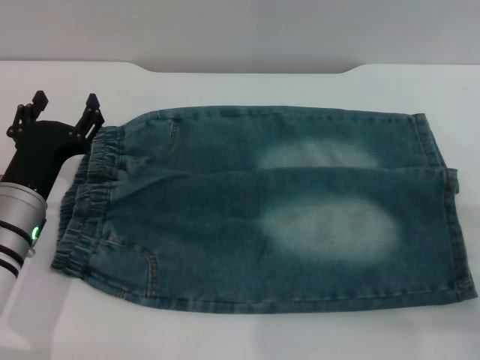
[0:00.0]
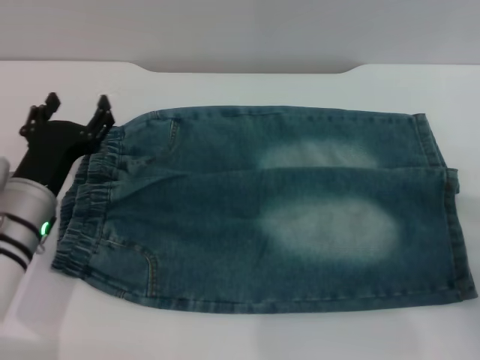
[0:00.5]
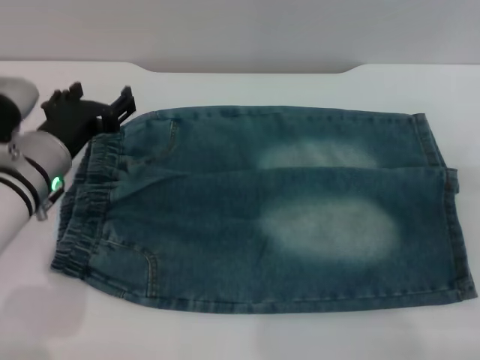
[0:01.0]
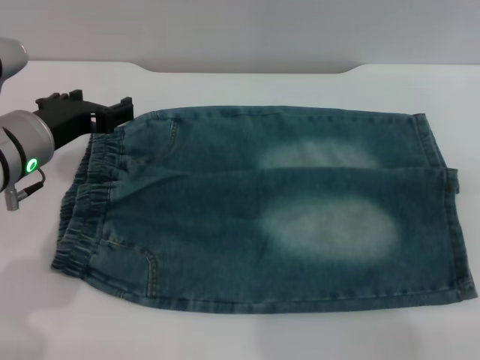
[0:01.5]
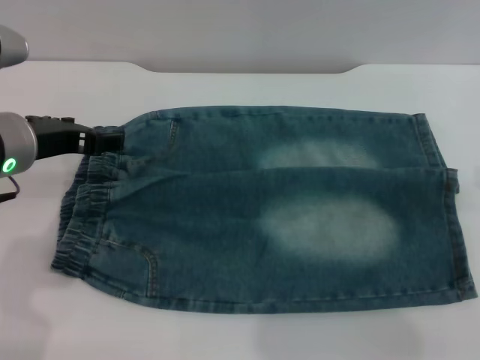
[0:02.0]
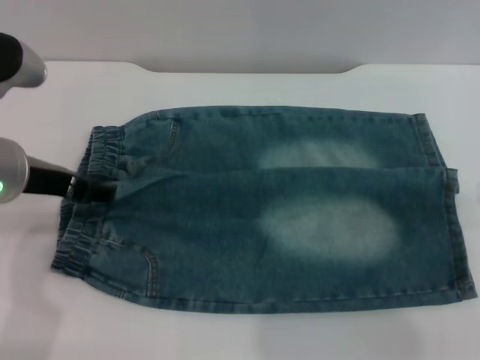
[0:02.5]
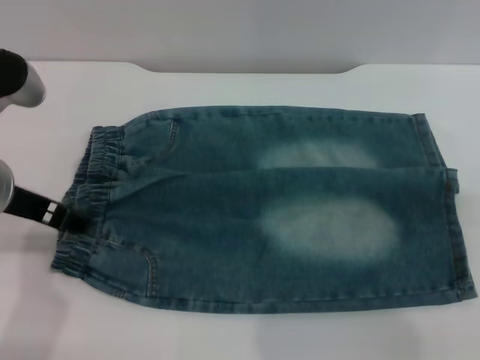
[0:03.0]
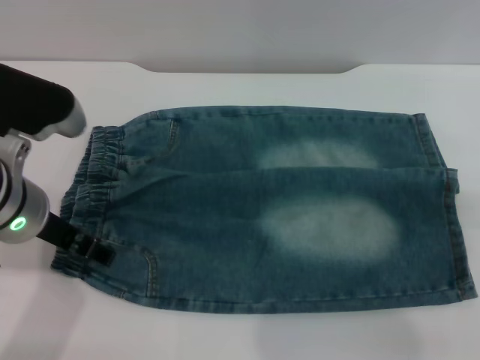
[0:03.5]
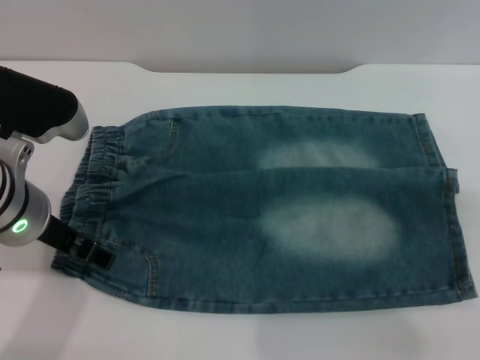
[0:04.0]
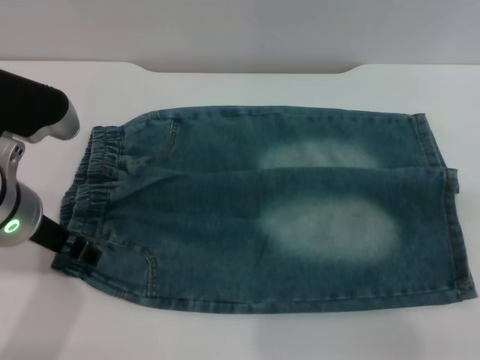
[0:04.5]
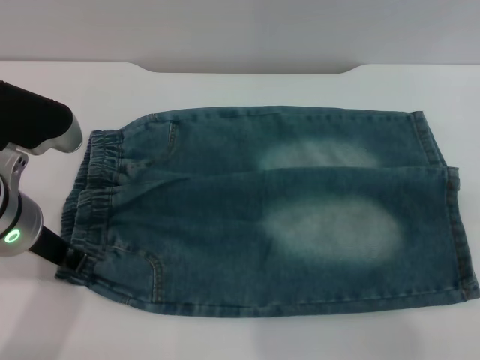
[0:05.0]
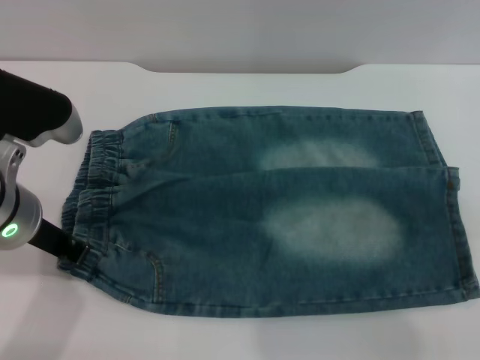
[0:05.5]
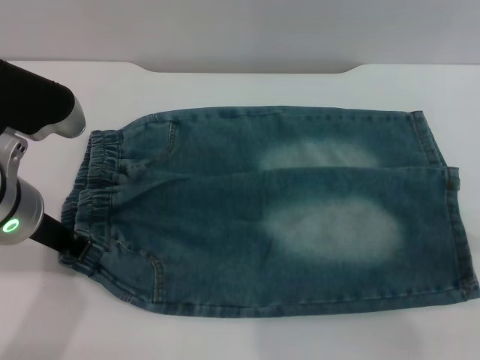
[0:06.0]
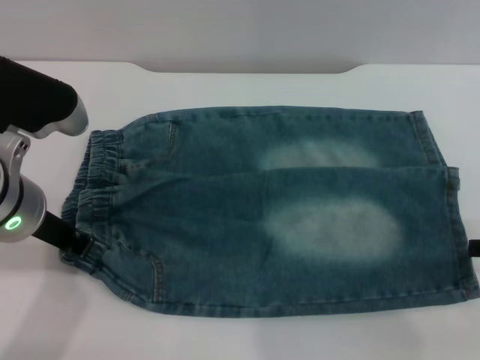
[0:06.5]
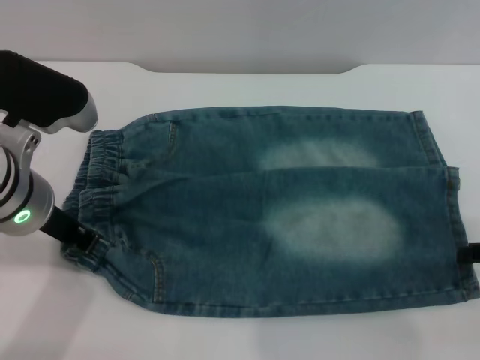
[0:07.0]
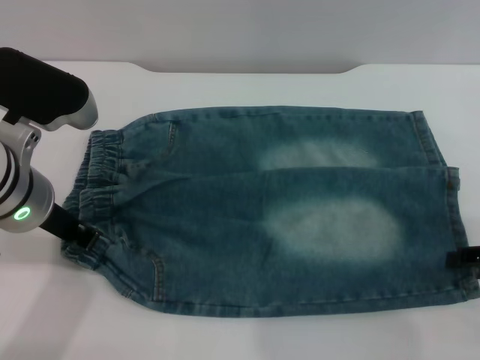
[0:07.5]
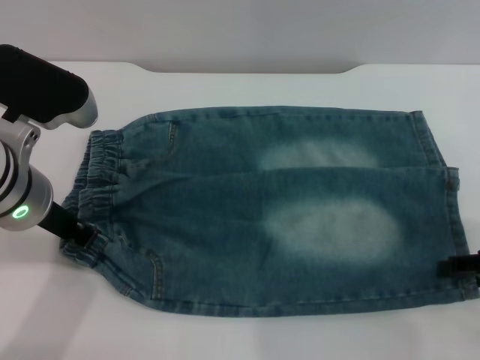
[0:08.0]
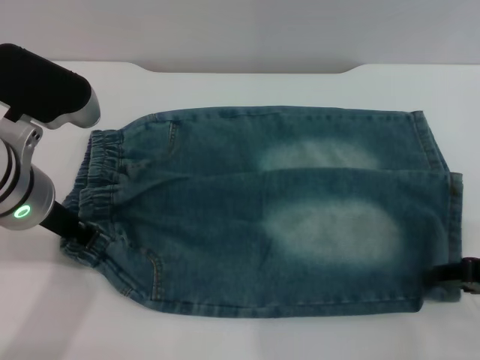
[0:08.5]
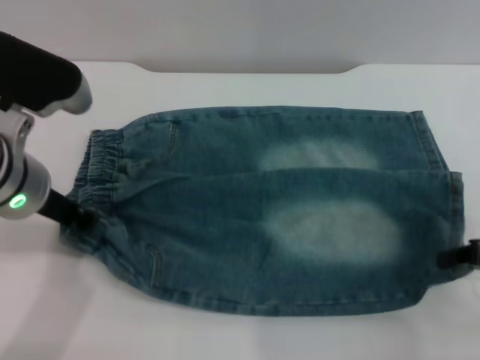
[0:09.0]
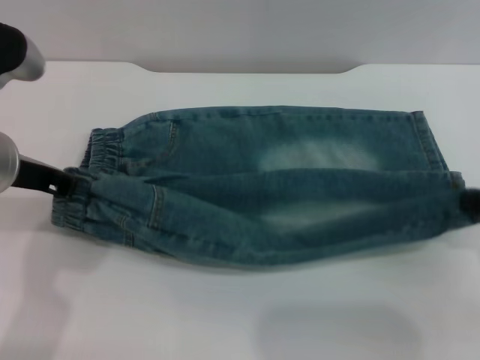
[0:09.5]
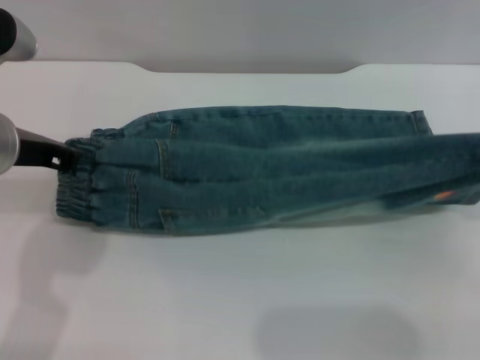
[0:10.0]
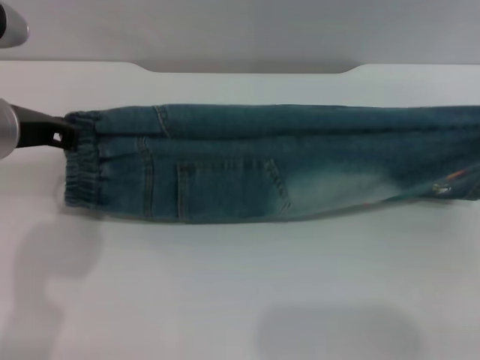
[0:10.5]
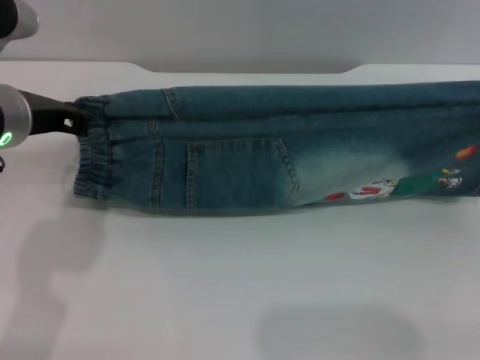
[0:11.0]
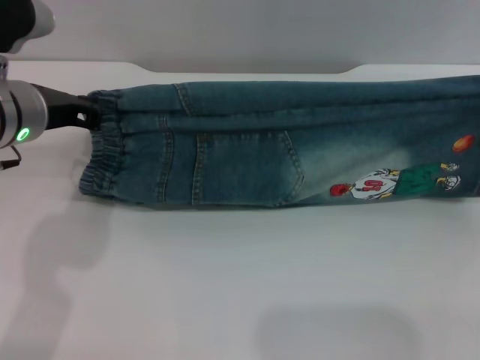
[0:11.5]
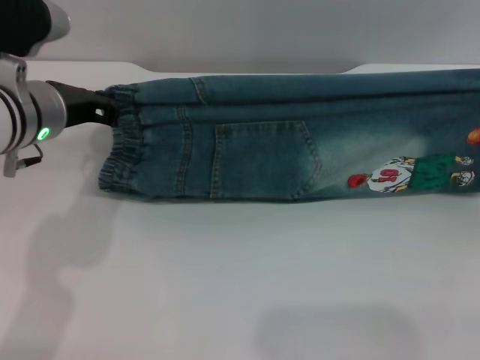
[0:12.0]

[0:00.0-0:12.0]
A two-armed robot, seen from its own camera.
0:00.0 to 0:02.0: Both grippers move upward, approximately 15 cm.
0:04.0 to 0:06.0: The left gripper closes up.
0:08.0 to 0:10.0: The right gripper heads upward, covering about 10 cm, and closes its fingers.
0:10.0 to 0:12.0: The left gripper ends up some 5 cm from where it was, while the right gripper is displaced forward and downward by some 10 cm.

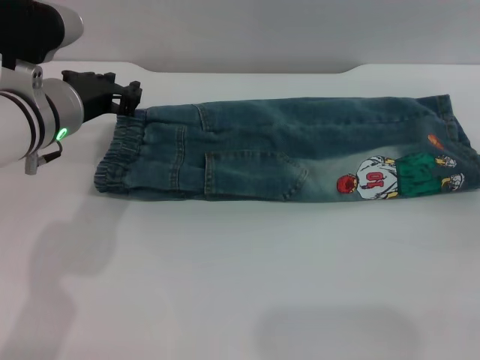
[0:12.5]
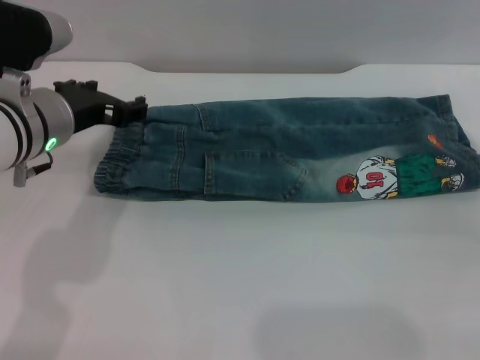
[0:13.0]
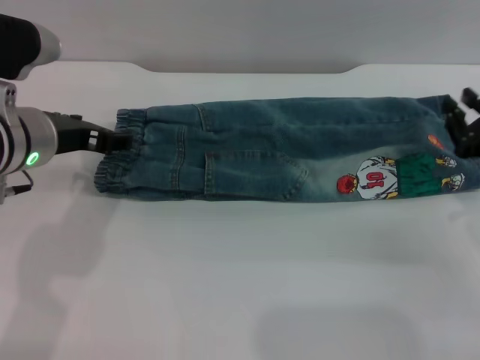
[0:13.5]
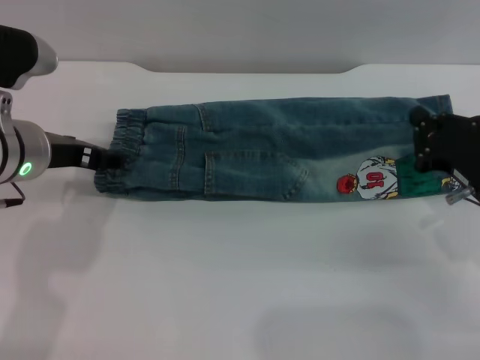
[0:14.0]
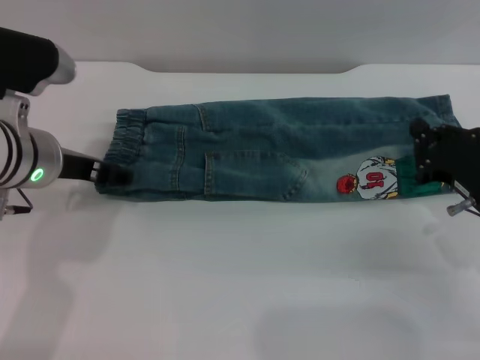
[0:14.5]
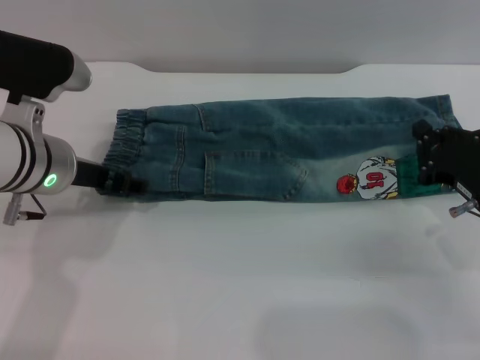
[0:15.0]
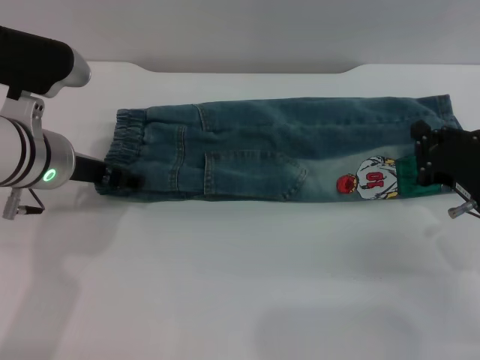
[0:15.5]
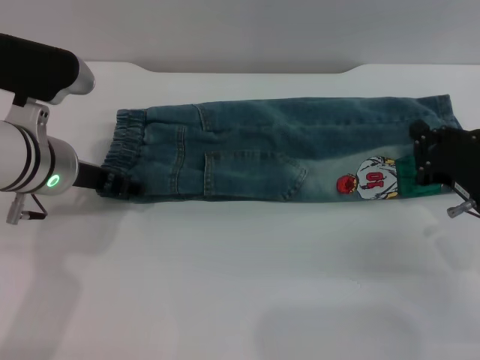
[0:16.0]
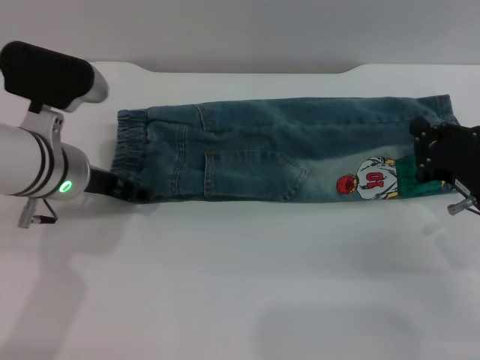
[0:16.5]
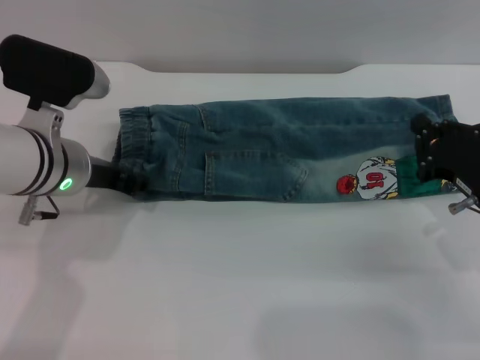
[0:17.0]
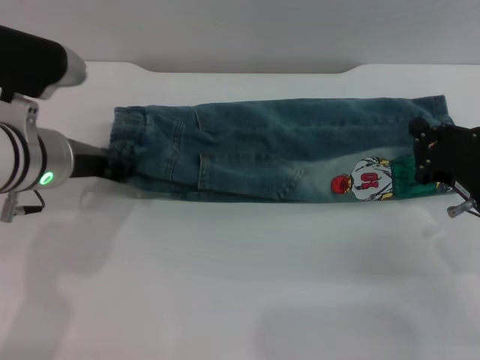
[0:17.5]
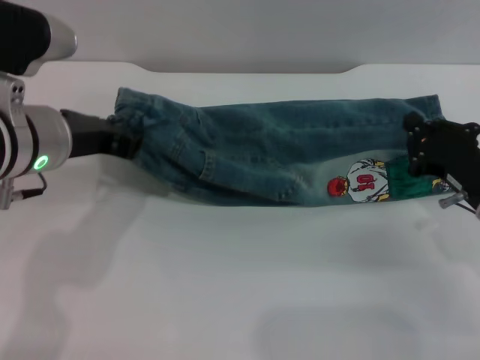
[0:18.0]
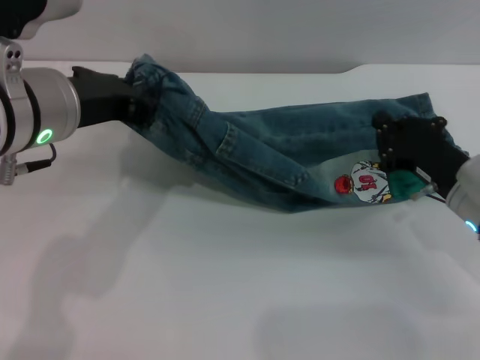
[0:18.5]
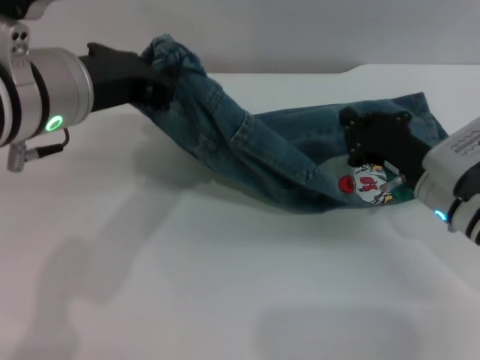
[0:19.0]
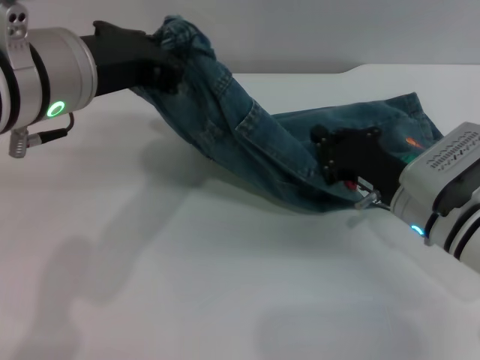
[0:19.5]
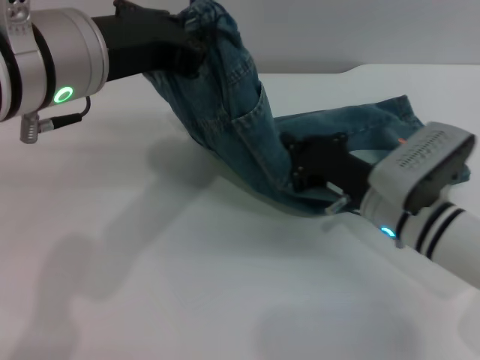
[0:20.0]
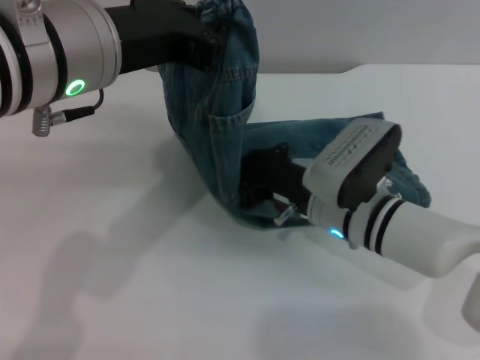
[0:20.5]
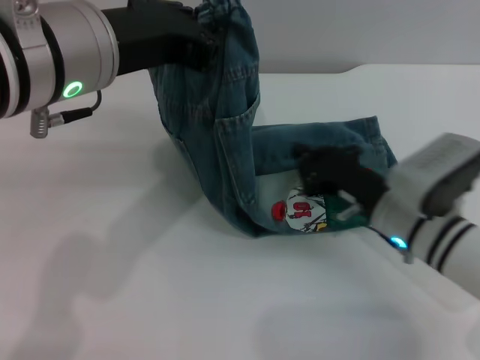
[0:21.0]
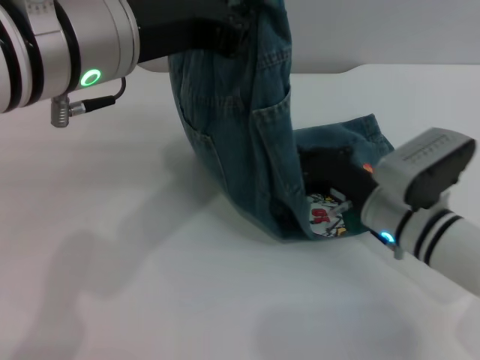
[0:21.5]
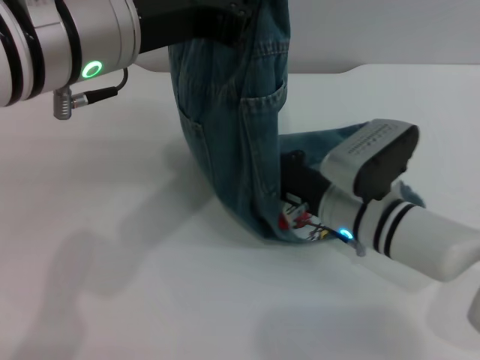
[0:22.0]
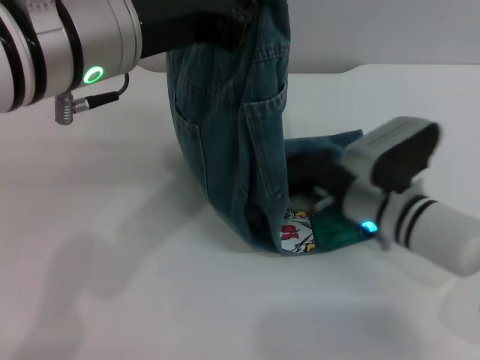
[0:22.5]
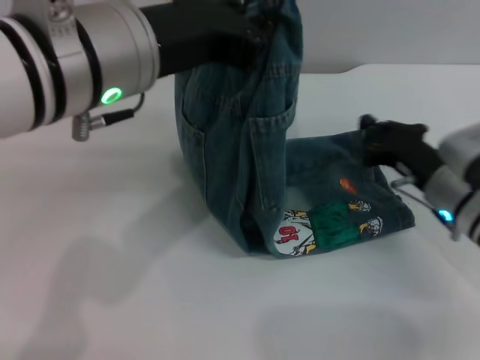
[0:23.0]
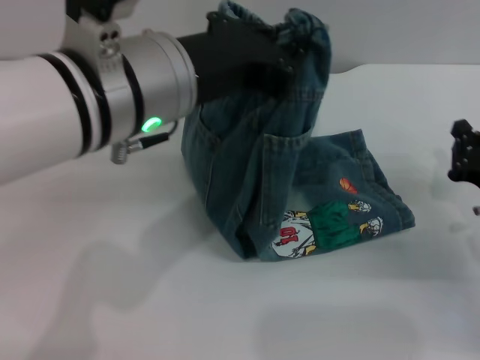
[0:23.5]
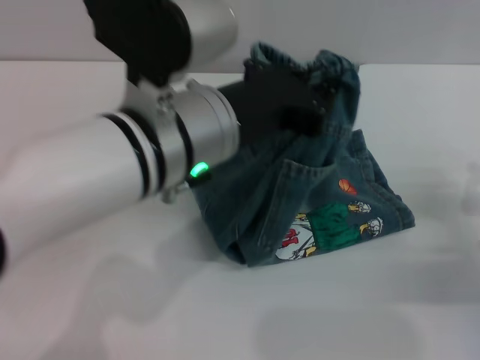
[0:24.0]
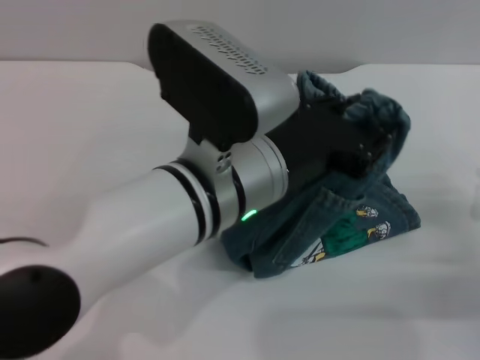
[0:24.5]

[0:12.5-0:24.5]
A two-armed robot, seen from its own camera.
0:12.5 to 0:14.5: The left gripper opens up. The right gripper shifts approximately 10 cm to the left and downward, and closes.
0:14.5 to 0:16.5: The grippers stay close to where they were, moving slightly.
0:16.5 to 0:18.5: The left gripper shifts roughly 10 cm upward, and closes.
0:18.5 to 0:20.5: The left gripper changes place by roughly 5 cm, while the right gripper moves to the left, about 15 cm.
0:22.5 to 0:24.5: The left gripper goes roughly 15 cm downward and to the right. The right gripper is displaced to the right and backward by some 20 cm.

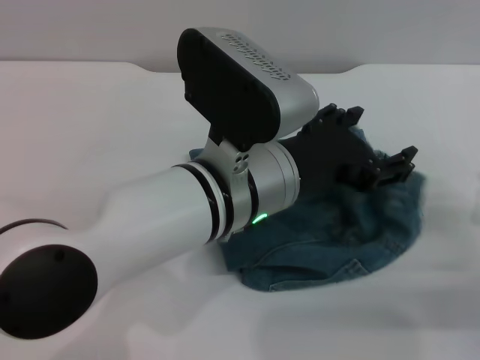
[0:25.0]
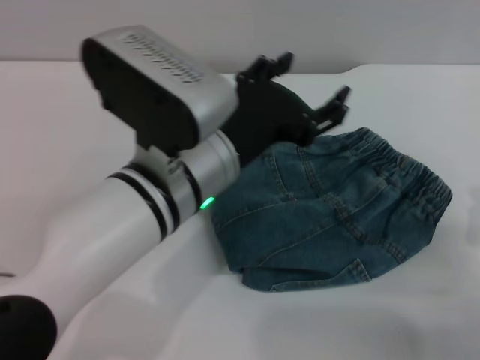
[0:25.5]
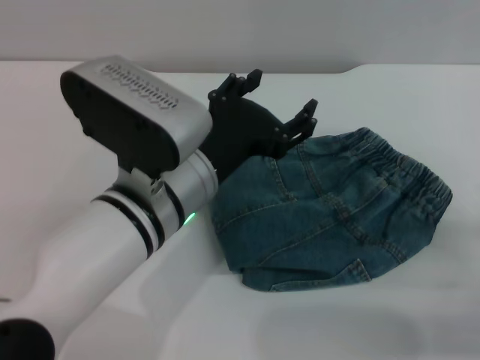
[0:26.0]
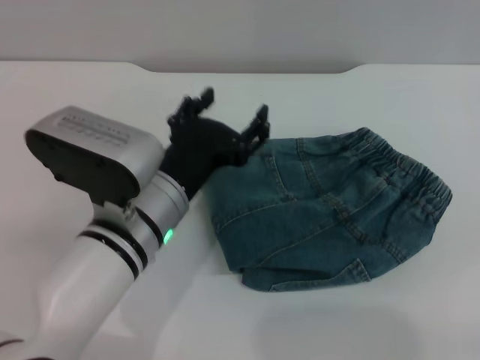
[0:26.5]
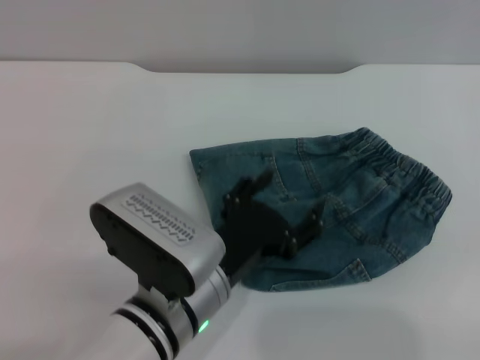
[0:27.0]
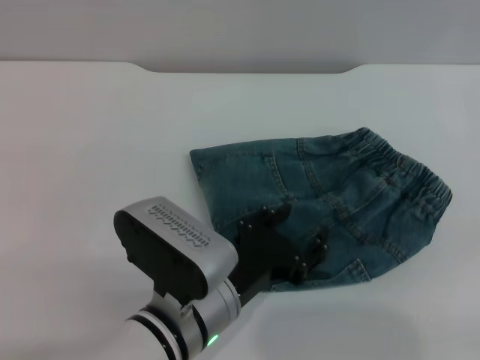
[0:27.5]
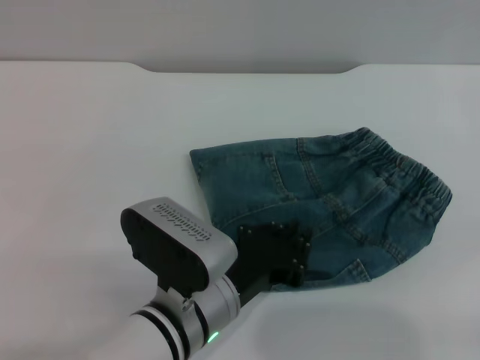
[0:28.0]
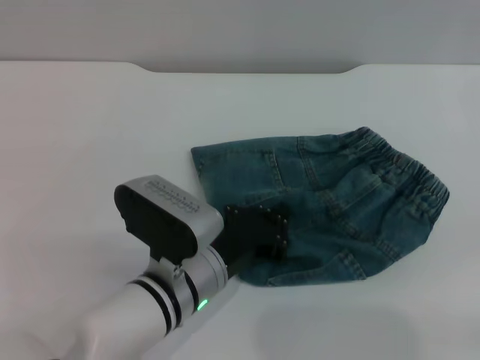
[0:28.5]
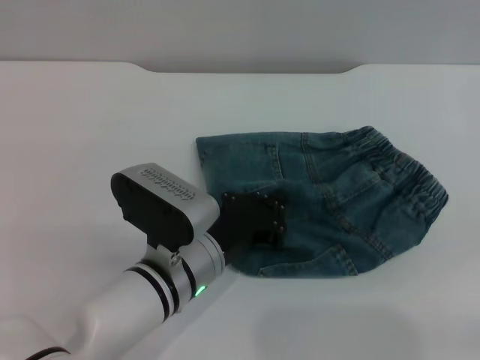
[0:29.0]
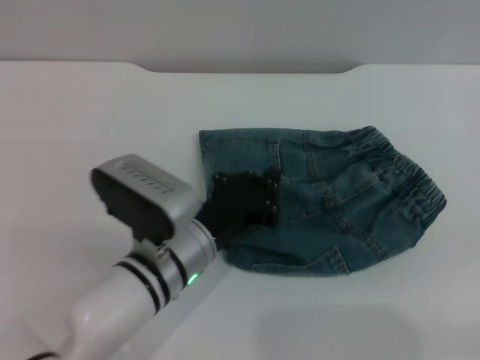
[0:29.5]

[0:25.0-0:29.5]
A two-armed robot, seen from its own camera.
0:25.0 to 0:27.0: The left gripper shifts some 10 cm downward and backward, while the right gripper heads to the right and backward, covering approximately 10 cm.
0:27.0 to 0:29.5: The left gripper heads forward, covering about 5 cm, and closes.
